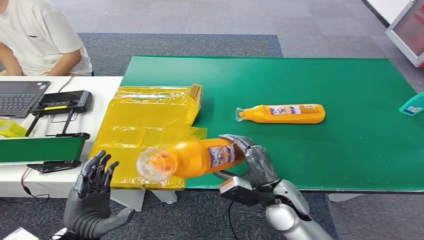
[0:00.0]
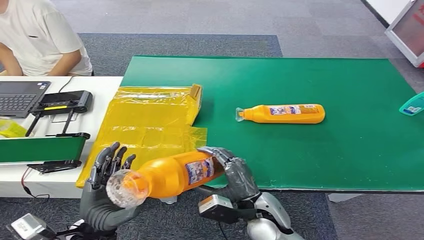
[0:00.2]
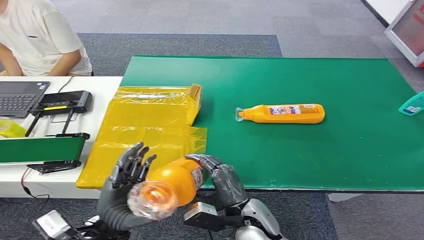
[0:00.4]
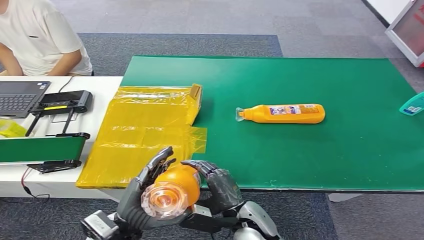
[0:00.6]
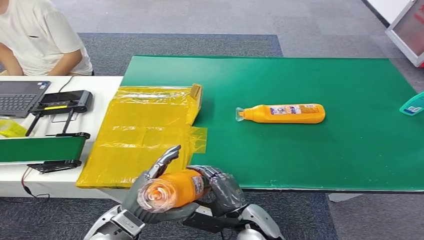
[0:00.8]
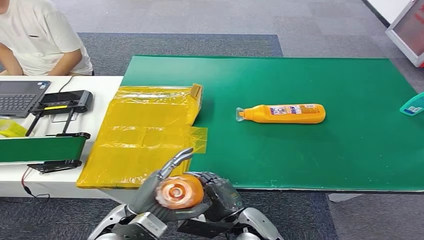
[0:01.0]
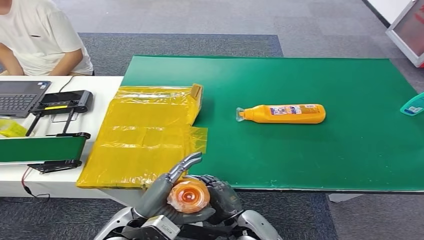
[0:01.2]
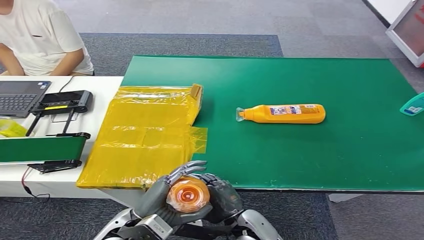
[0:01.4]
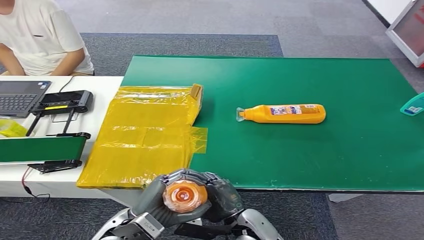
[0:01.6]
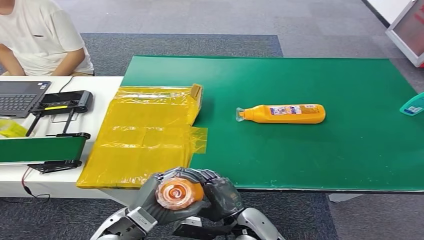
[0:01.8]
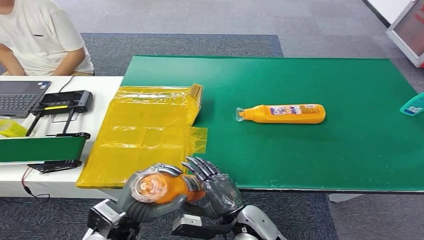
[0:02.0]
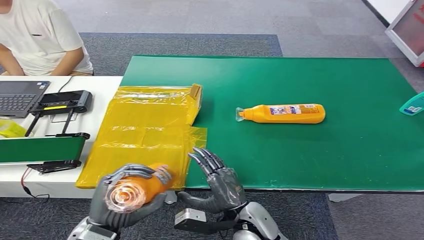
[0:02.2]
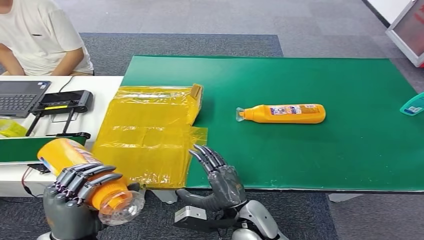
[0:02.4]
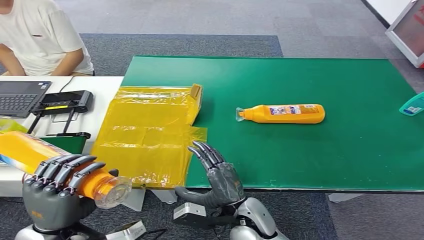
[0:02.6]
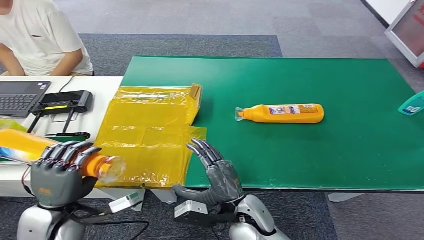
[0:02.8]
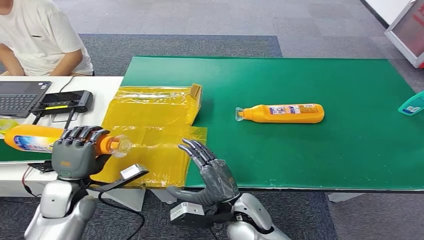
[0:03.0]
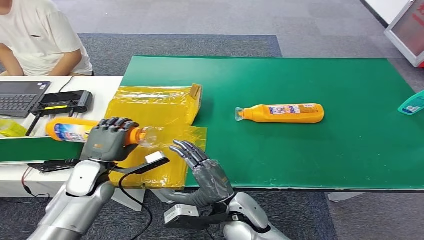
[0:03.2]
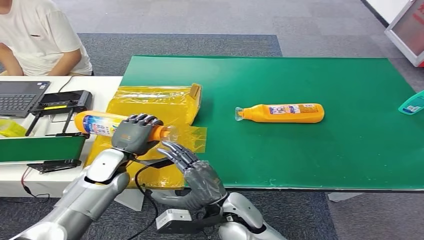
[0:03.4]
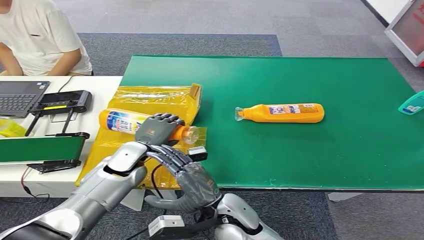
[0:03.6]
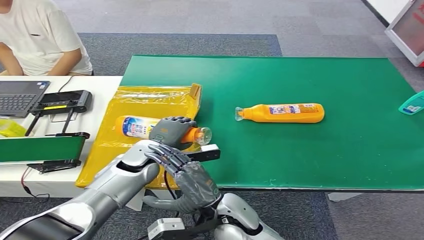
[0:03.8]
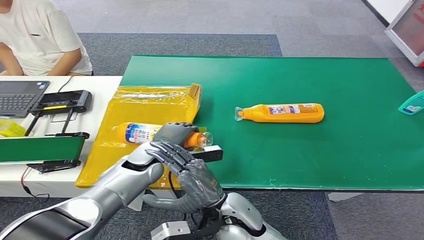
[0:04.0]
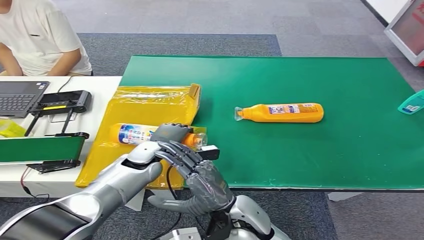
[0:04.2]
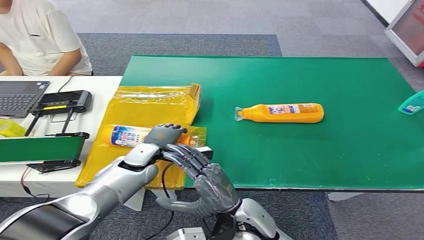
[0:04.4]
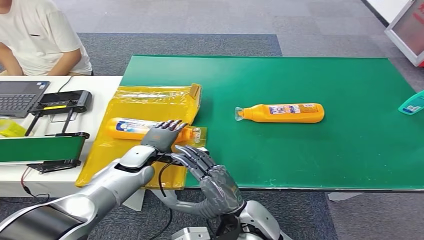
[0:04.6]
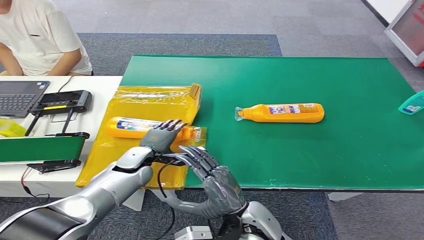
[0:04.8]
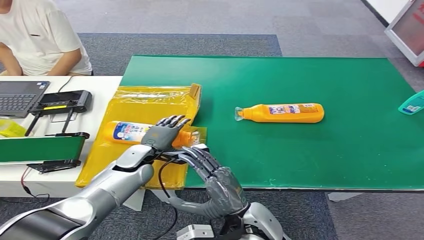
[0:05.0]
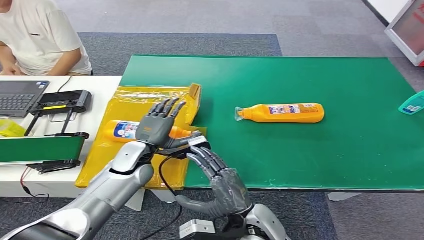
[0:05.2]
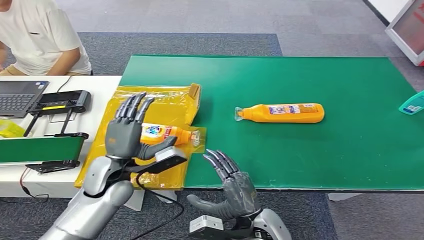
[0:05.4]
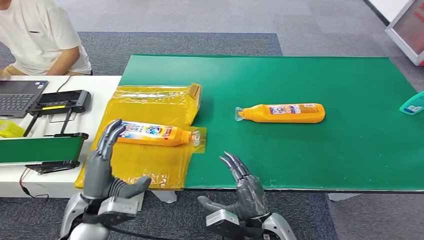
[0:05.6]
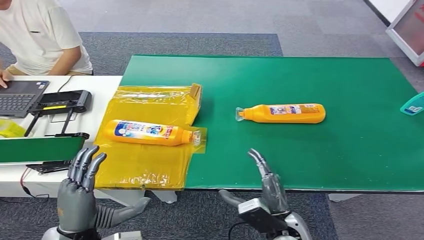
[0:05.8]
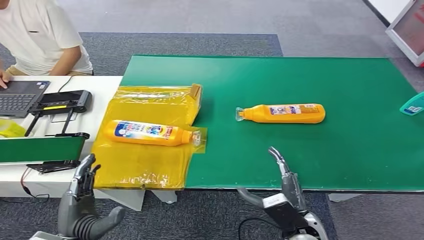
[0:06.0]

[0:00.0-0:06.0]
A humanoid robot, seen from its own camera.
Step, 0:00.0 to 0:05.8: Turn the bottle to the front side.
0:00.0 to 0:01.6: The right hand moves to the left, downward and backward, about 10 cm; the left hand shifts some 10 cm to the right.
0:01.6 to 0:03.0: The right hand moves upward, about 5 cm; the left hand goes approximately 15 cm to the left and forward.
0:03.0 to 0:04.4: The left hand moves to the right and forward, roughly 20 cm.
0:04.4 to 0:06.0: The right hand moves to the right and downward, approximately 15 cm; the left hand shifts about 25 cm backward.
